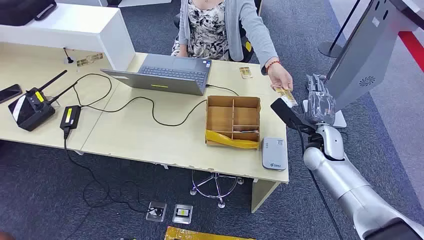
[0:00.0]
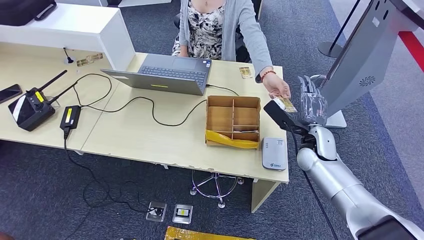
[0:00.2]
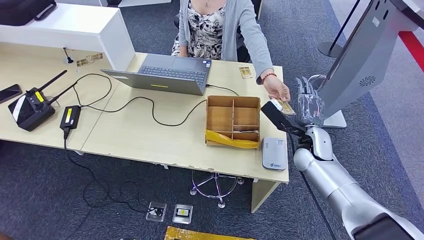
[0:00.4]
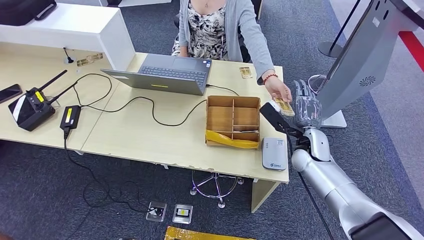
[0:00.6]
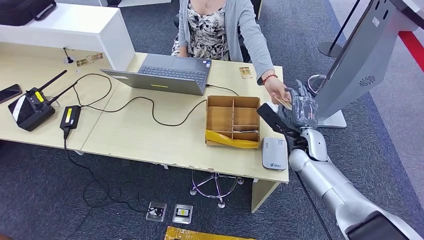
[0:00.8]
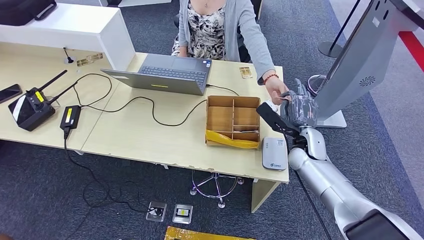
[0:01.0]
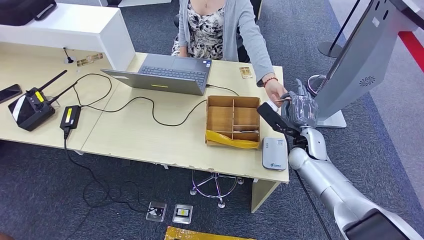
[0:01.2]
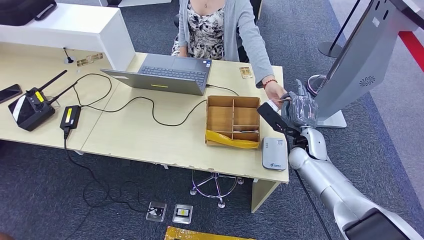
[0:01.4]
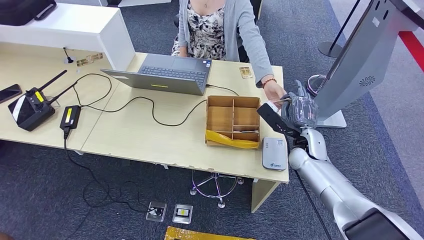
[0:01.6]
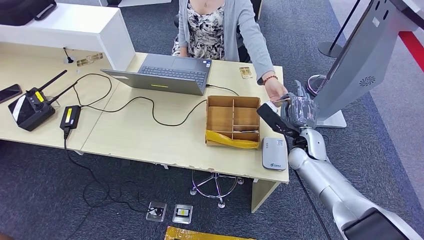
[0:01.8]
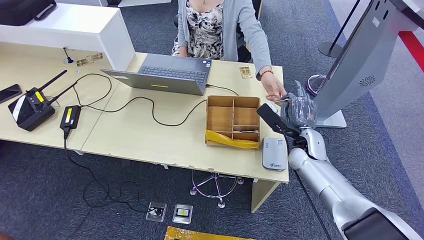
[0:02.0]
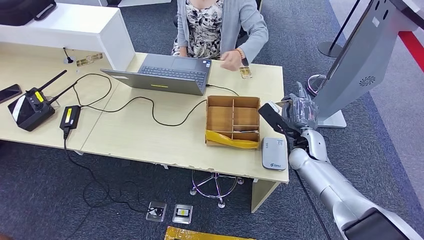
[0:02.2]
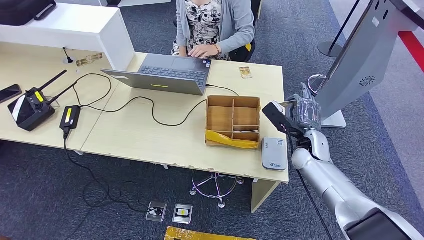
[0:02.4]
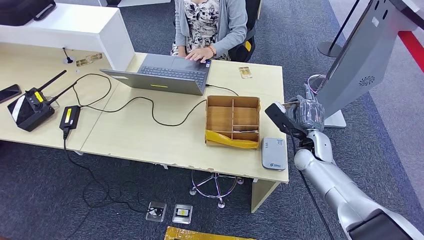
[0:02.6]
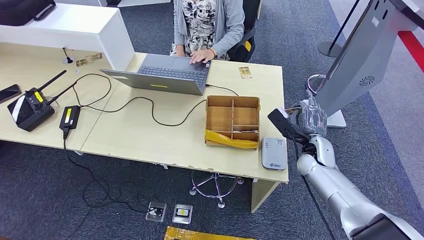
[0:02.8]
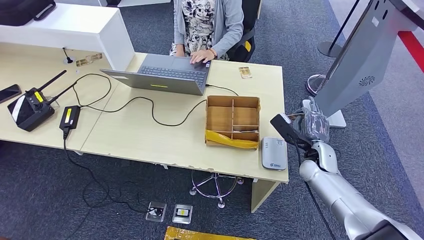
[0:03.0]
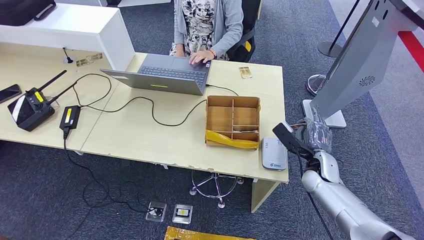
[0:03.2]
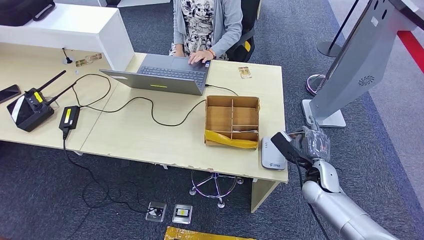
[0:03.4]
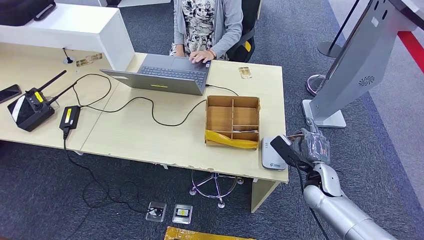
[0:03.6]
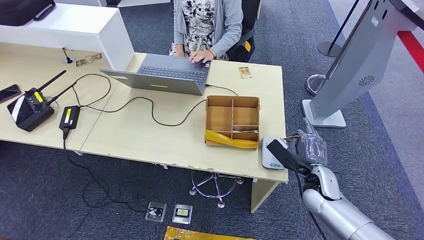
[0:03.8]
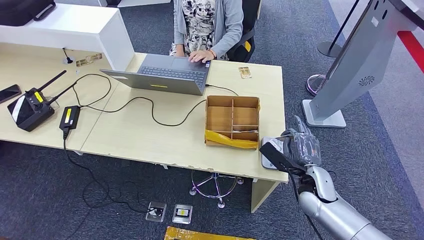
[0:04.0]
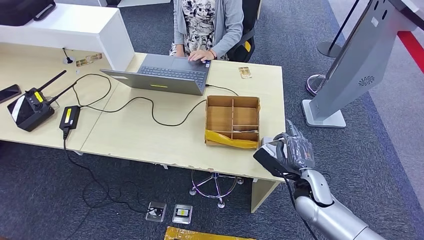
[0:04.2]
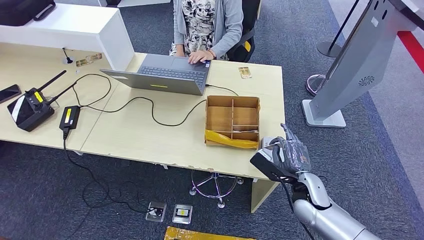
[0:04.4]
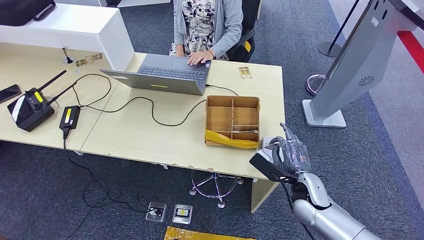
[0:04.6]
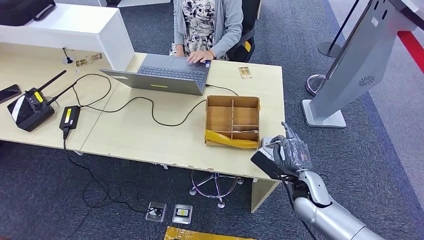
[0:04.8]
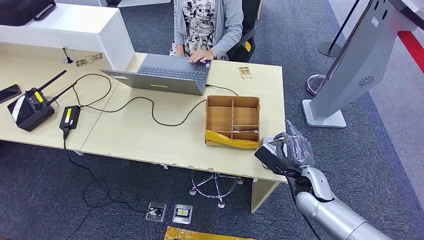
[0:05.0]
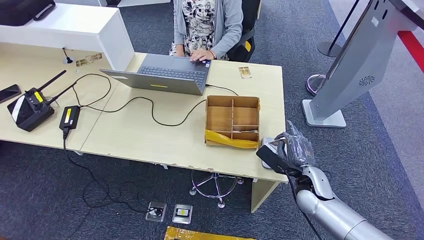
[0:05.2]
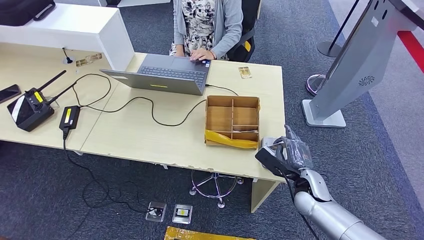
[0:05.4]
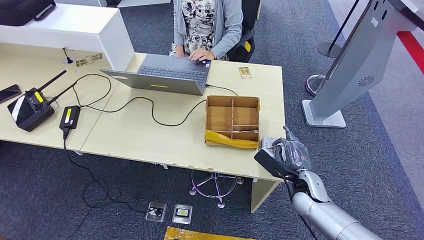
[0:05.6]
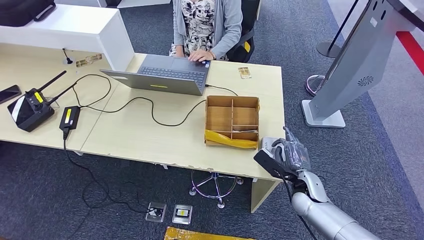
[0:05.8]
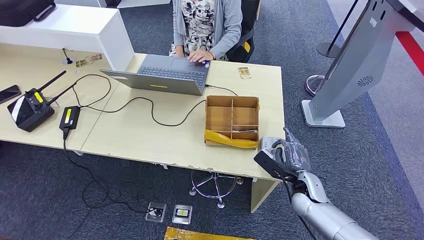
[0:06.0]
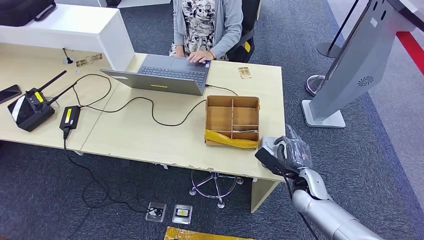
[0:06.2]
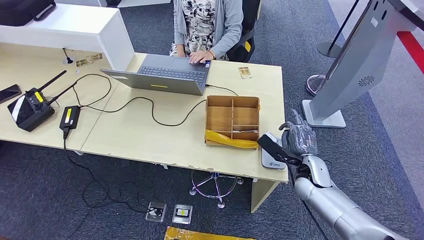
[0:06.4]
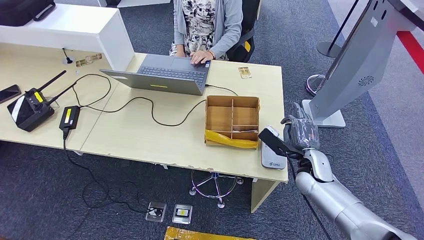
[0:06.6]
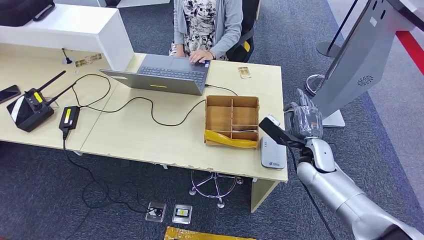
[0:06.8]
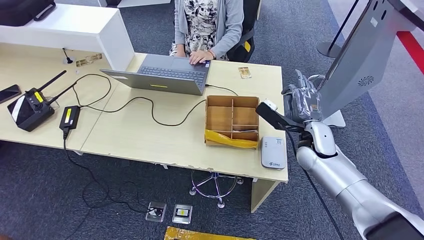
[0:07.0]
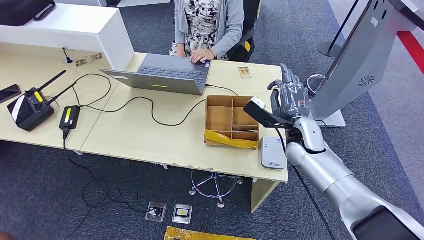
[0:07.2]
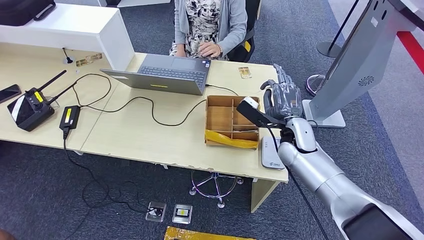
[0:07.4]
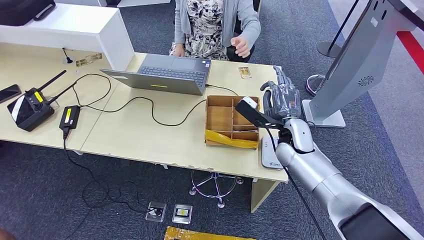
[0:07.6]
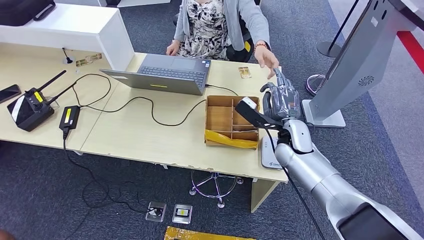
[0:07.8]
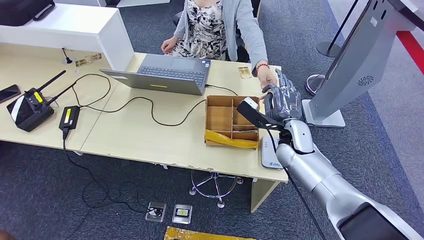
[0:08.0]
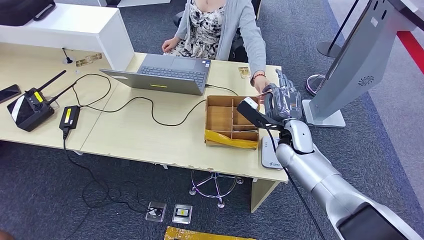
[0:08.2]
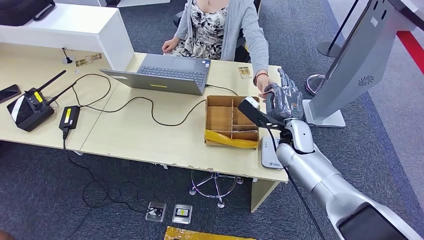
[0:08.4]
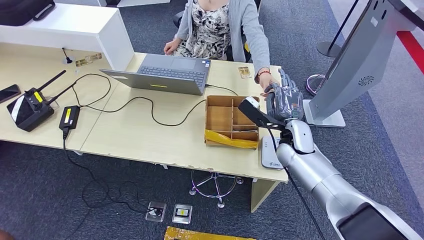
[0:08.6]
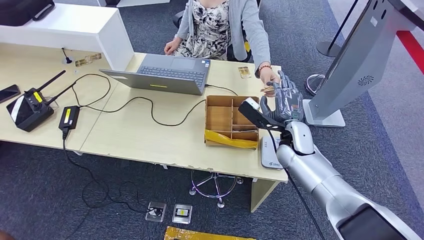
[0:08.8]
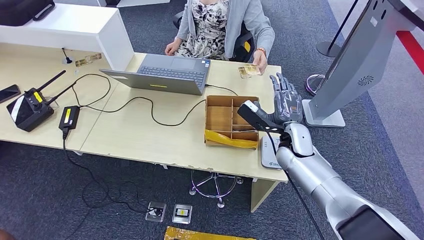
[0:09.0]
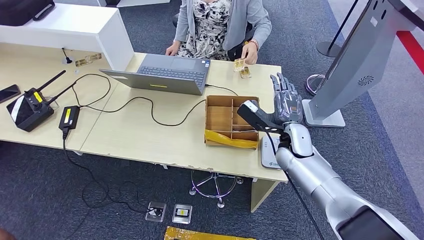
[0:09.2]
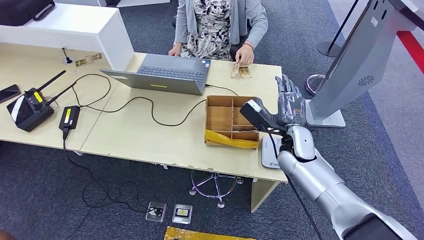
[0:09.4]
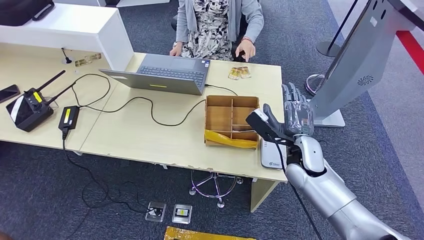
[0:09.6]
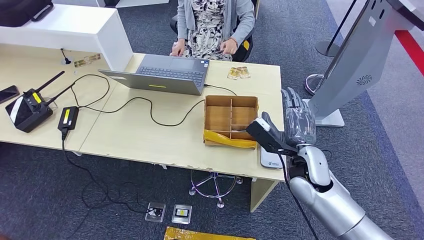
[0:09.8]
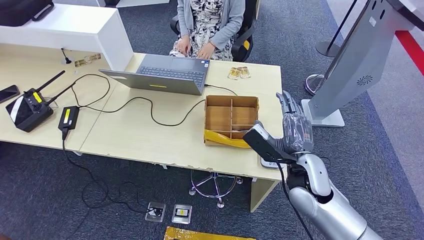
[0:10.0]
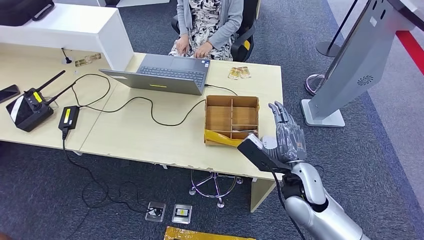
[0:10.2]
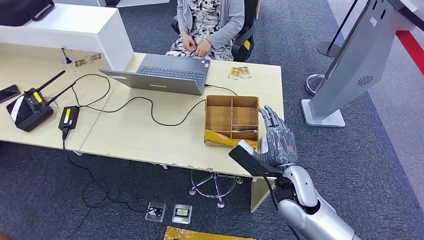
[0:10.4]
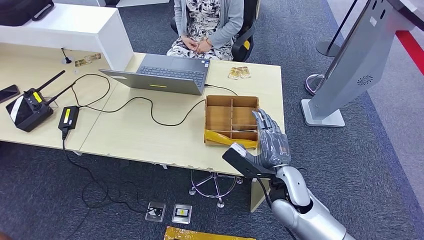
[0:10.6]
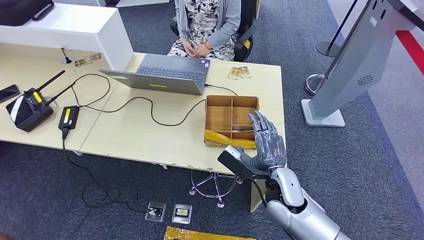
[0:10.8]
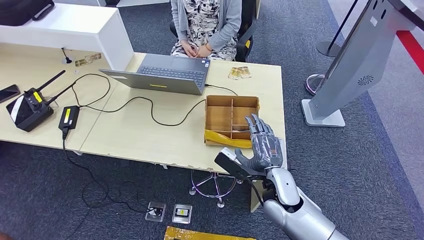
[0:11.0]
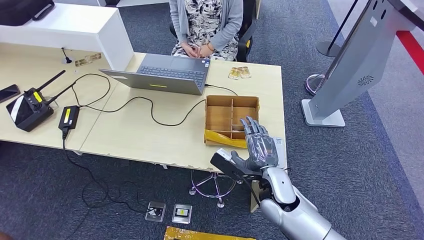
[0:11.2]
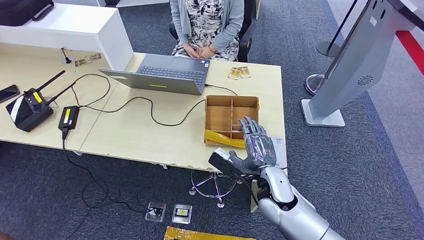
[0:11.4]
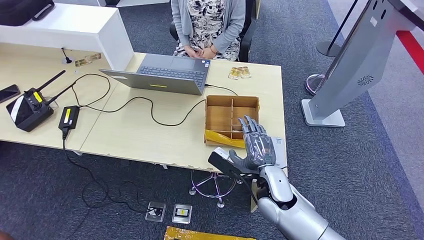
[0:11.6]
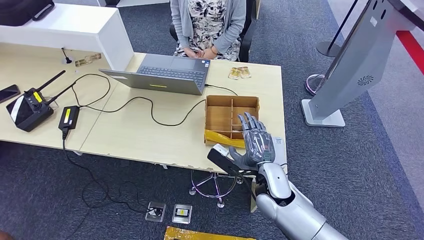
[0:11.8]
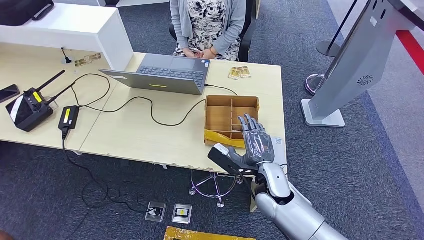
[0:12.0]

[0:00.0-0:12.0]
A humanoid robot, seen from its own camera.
Step, 0.0 to 1.6 s: Take the ID card from the person's hand.
Step, 2.0 to 7.0 s: Place the ID card on the card reader.
Step, 7.4 to 10.8 s: Hand the ID card to the person.
1.6 to 3.0 s: The right hand changes place by about 5 cm.
3.0 to 4.4 s: The right hand shifts about 10 cm backward.
4.4 to 6.0 s: There are only small adjustments of the hands.
6.0 to 7.6 s: The right hand shifts roughly 20 cm upward, forward and to the left.
7.6 to 9.0 s: There are only small adjustments of the hands.
9.0 to 10.4 s: The right hand is displaced backward by some 15 cm.
10.4 to 12.0 s: The right hand moves roughly 5 cm.

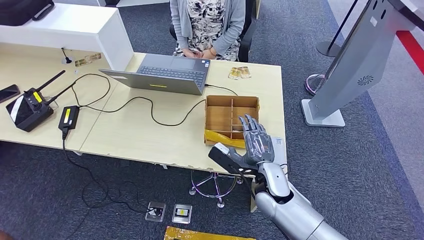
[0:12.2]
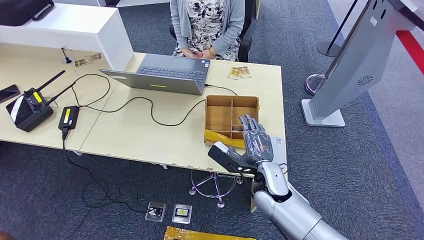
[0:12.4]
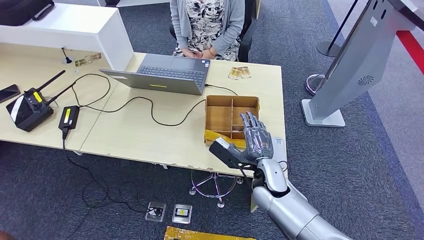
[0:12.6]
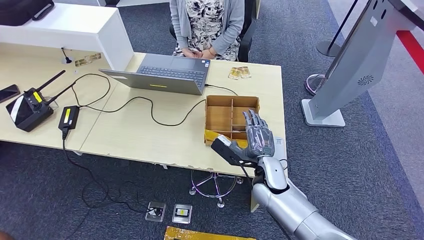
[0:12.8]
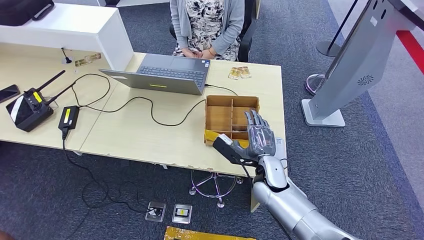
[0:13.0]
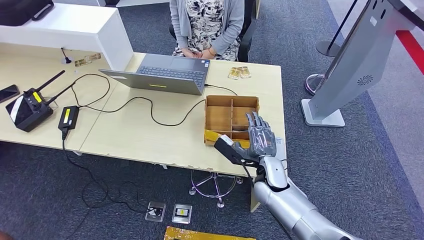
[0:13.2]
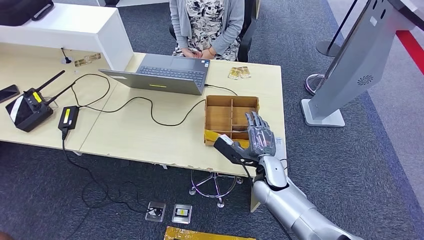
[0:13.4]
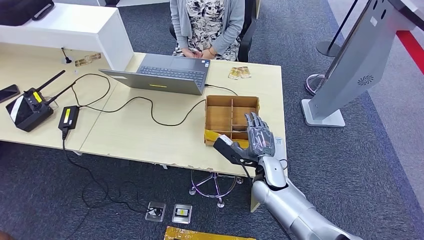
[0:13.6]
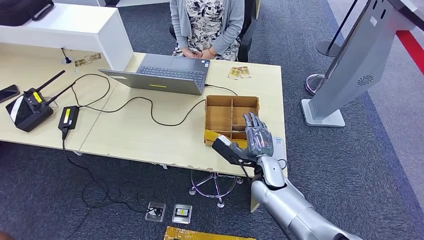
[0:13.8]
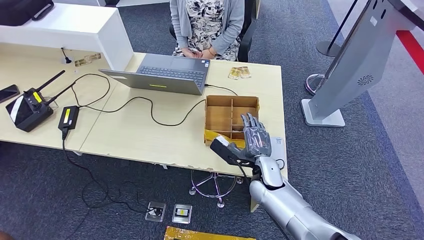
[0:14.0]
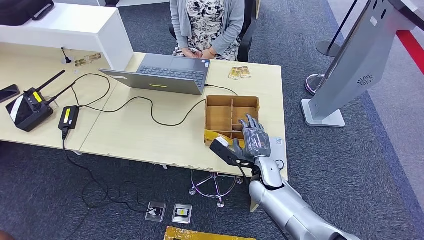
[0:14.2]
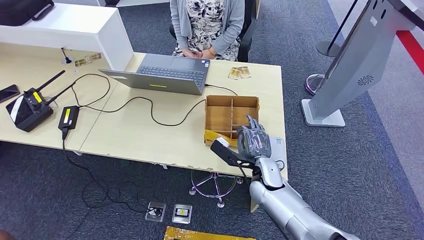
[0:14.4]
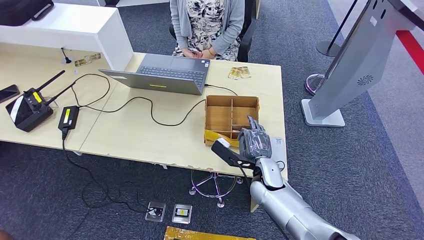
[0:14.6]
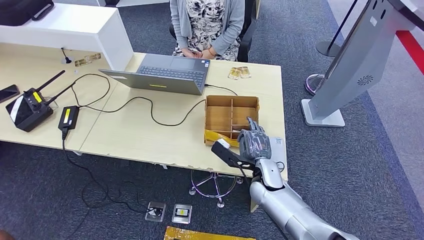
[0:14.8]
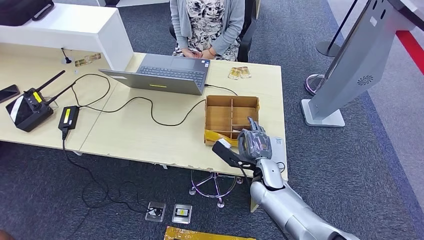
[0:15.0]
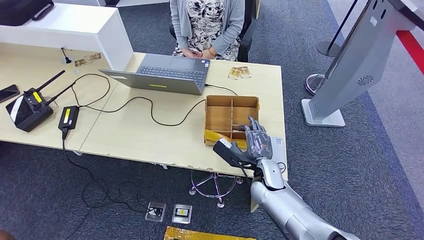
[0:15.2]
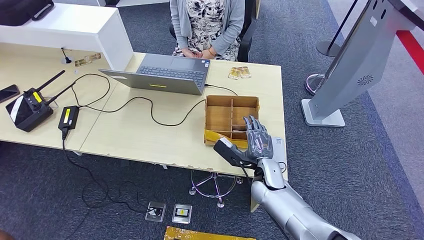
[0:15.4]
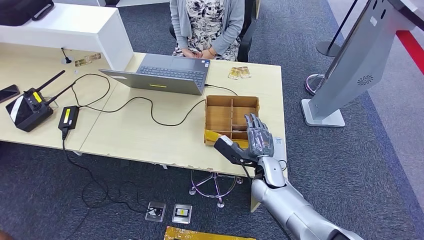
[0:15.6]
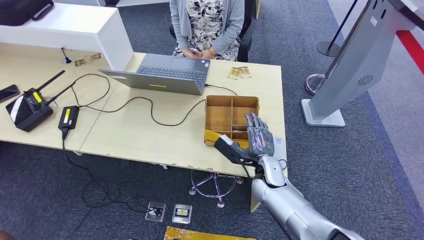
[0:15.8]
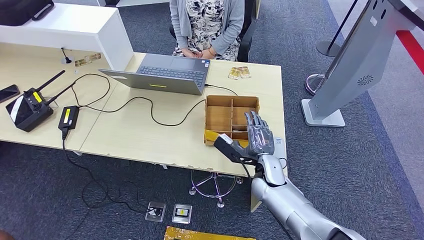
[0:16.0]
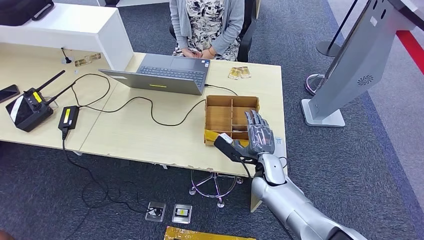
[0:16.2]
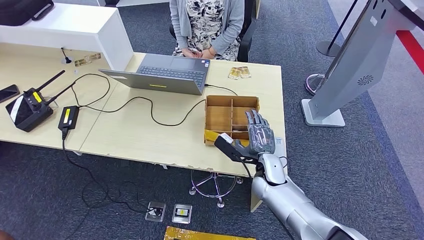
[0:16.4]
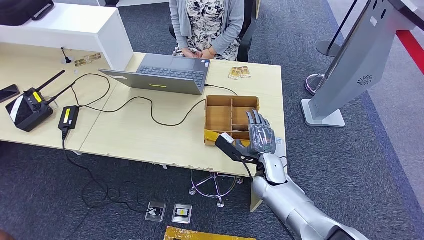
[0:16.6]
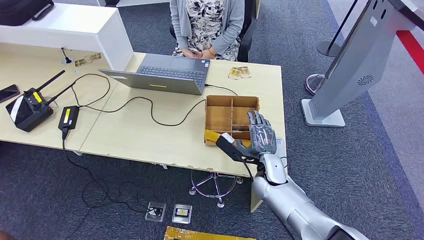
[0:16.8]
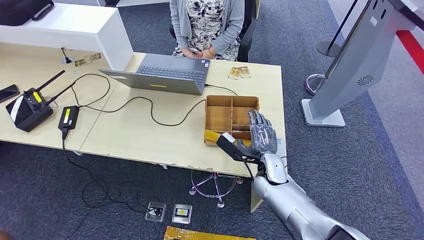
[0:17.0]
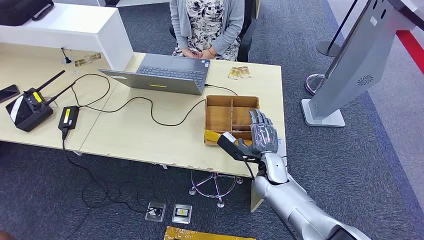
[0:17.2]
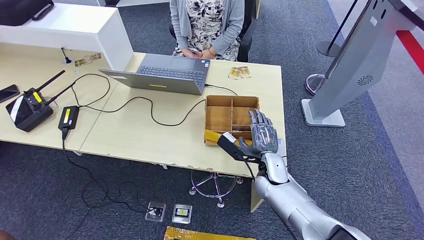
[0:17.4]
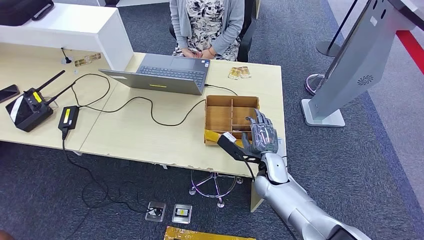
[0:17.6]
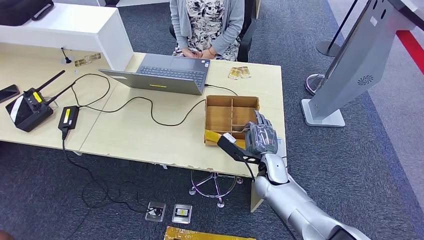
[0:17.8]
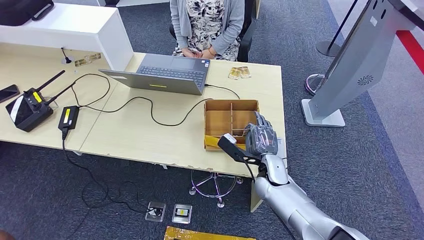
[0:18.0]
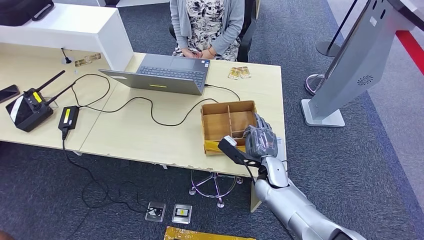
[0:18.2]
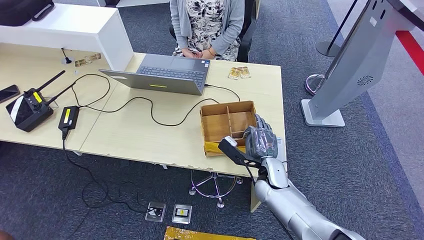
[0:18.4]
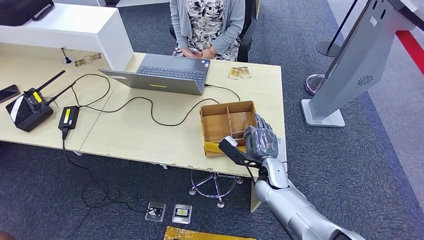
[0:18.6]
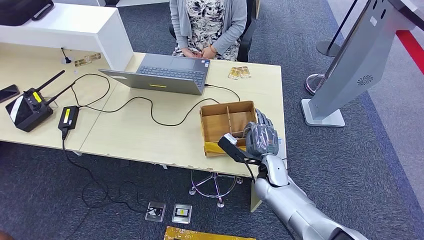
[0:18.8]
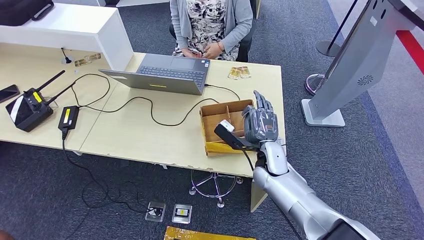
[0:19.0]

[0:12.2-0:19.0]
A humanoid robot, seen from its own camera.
12.2 to 13.6 s: The hands move only a little.
13.6 to 15.0 s: Both hands stay put.
15.0 to 16.2 s: The hands make only small movements.
16.2 to 17.6 s: Neither hand changes place.
17.6 to 19.0 s: The hands make only small movements.
